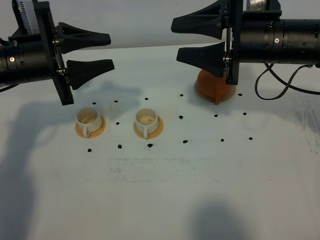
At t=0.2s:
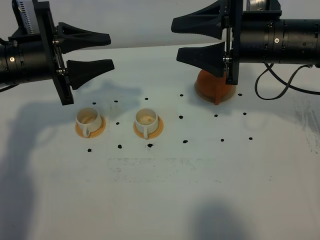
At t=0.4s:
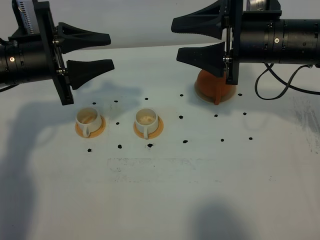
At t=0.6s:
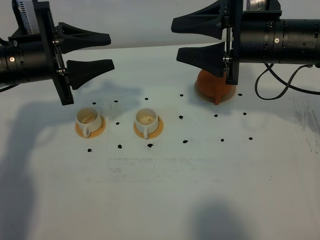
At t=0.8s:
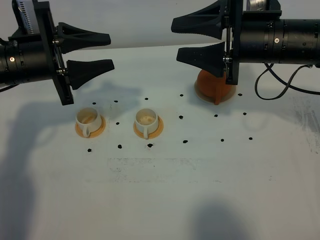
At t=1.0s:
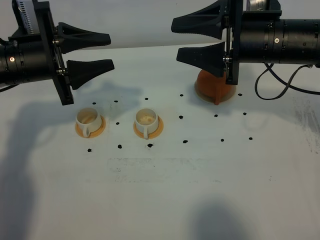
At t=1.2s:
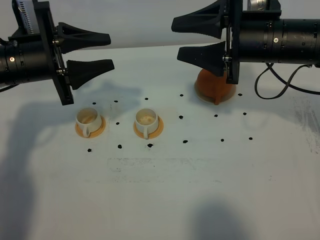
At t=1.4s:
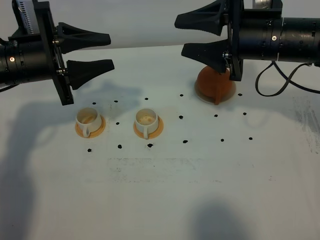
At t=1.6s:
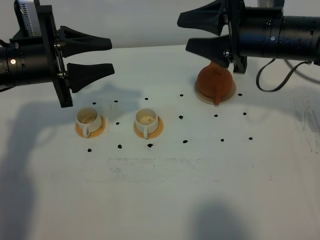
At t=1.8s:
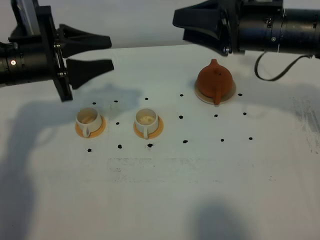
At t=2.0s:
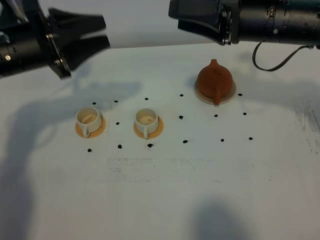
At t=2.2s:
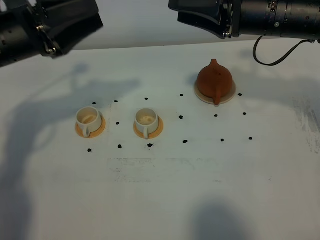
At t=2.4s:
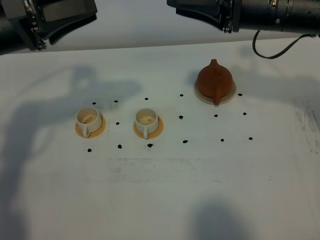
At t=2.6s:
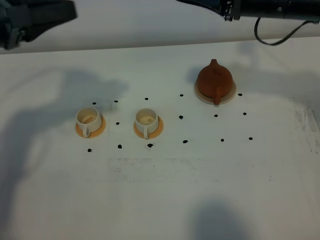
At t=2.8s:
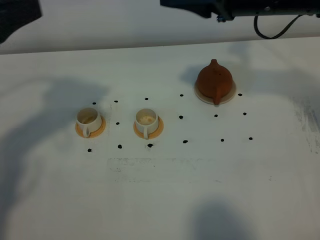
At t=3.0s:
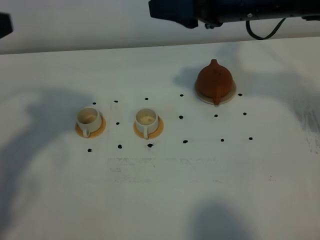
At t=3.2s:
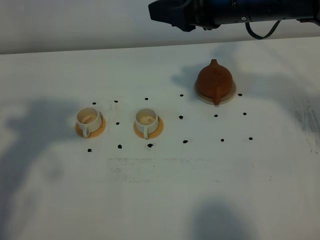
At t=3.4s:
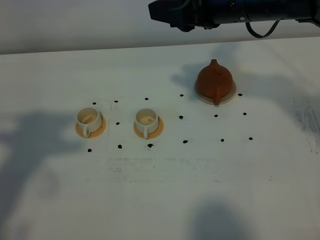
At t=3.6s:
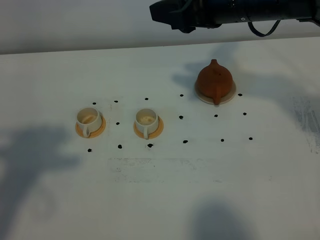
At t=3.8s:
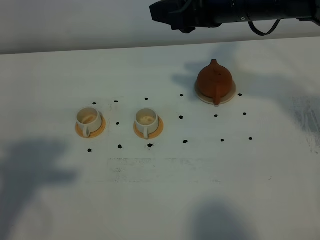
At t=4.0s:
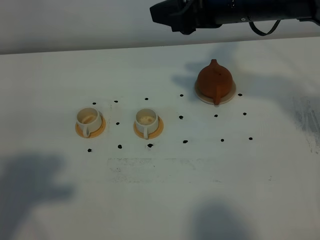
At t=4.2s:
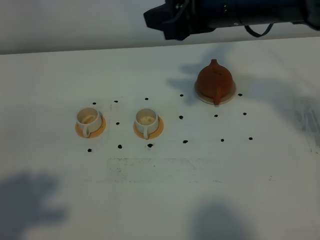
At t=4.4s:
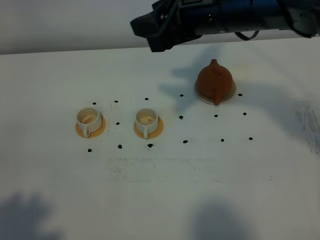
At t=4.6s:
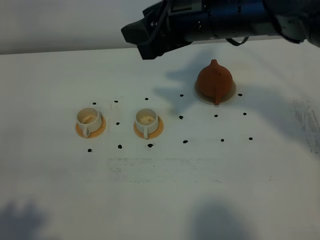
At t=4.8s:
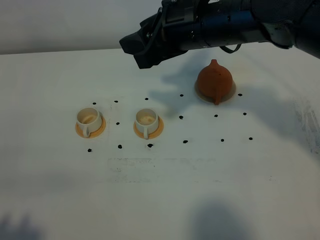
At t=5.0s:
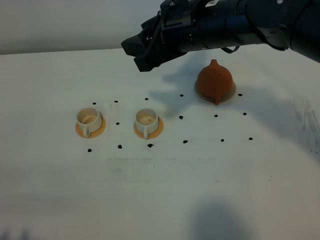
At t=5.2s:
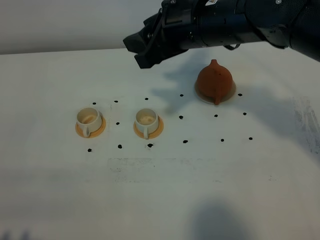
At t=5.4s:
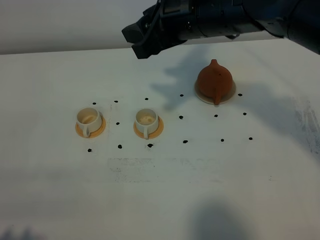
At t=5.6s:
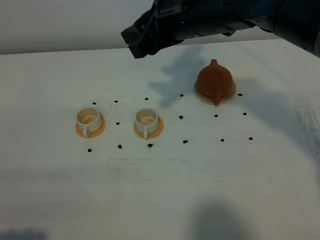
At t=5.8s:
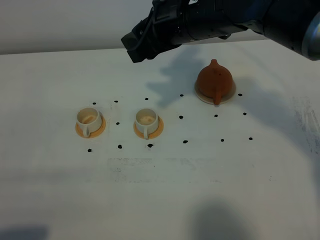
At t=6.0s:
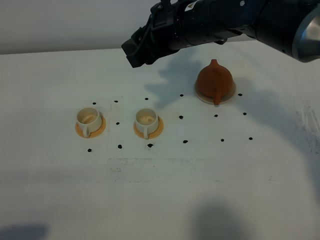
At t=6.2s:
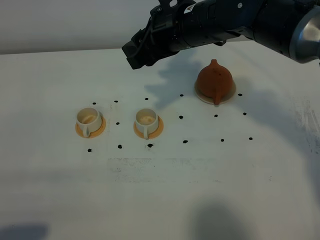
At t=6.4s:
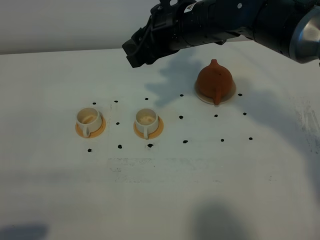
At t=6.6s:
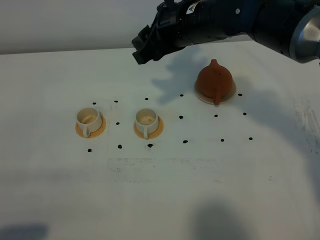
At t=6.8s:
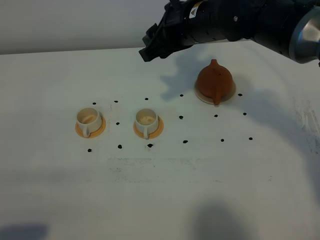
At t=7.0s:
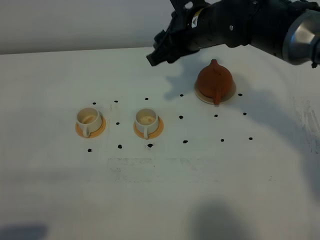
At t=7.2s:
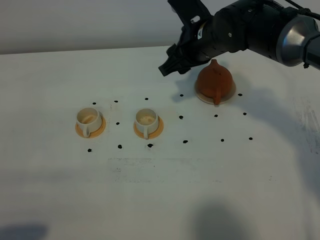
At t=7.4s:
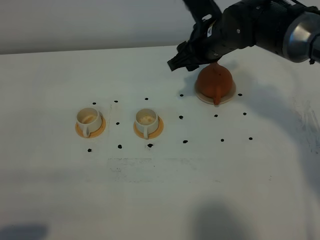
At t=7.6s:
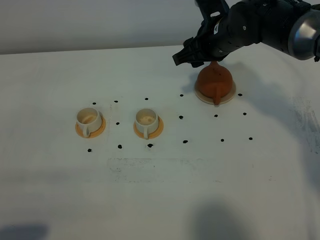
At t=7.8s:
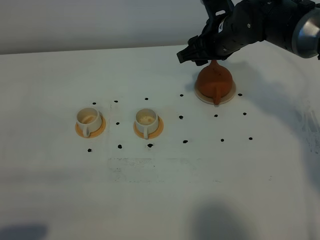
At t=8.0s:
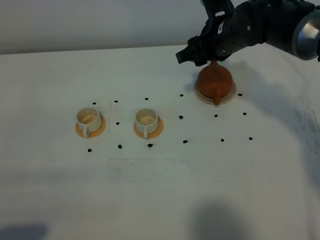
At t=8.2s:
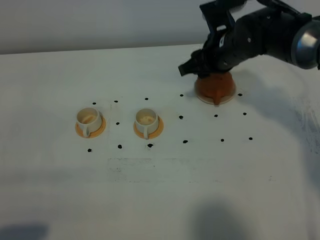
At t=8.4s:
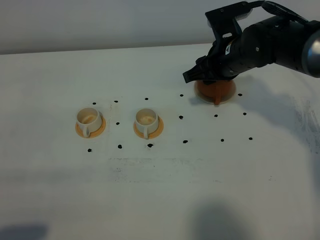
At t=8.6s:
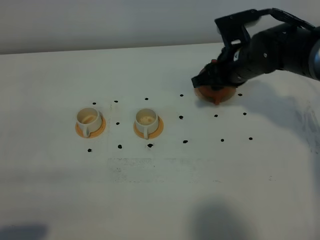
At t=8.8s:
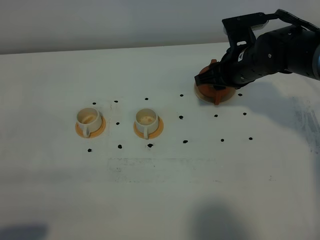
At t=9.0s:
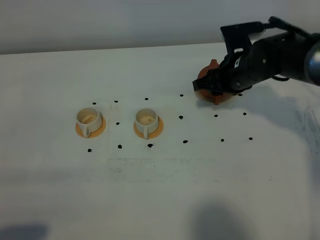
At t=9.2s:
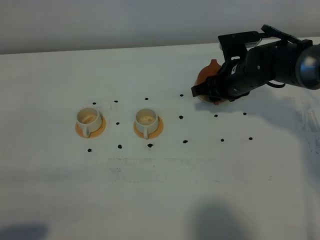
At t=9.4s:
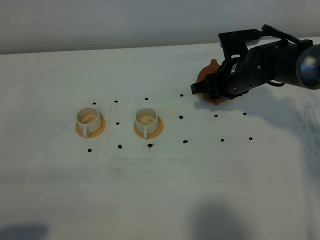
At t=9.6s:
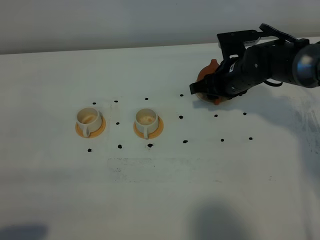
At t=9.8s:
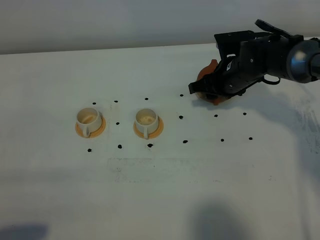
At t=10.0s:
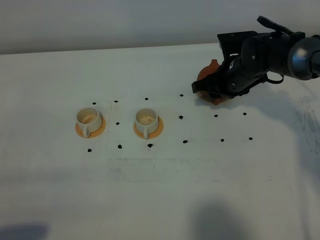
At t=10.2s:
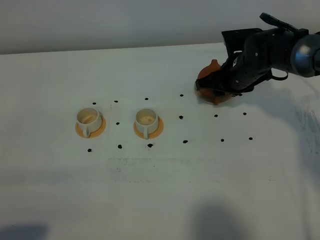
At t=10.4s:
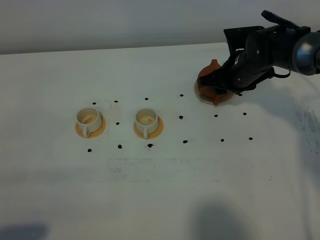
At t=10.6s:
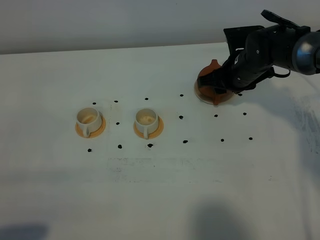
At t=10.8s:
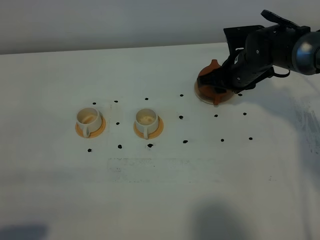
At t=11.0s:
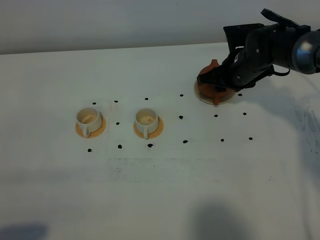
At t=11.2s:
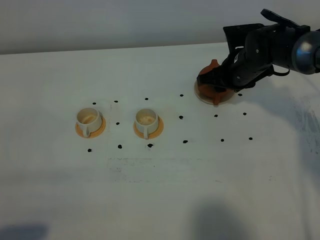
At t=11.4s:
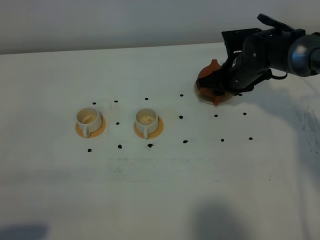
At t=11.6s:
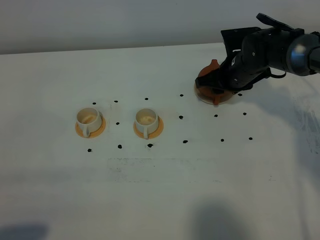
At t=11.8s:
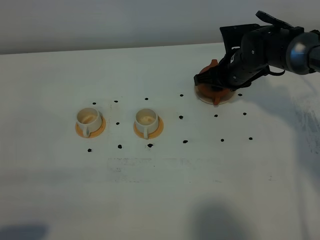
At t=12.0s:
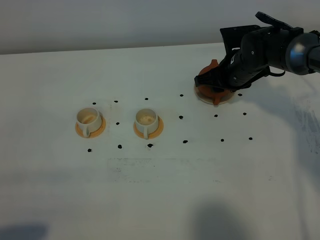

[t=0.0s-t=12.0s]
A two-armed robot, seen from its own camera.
Task of the whole recording: grasp the brown teapot and pour the tea into the two white teacups one by one, put the brown teapot back in its original place.
t=0.0s to t=1.6s: The grippers move only a little.
t=1.6s to t=3.0s: The left gripper is displaced upward and backward by about 20 cm, and closes its fingers. The right gripper heads upward, covering about 5 cm.
t=3.0s to t=4.4s: The left gripper goes roughly 20 cm backward.
t=4.4s to t=6.0s: The left gripper goes about 15 cm downward. The right gripper heads downward, covering approximately 5 cm.
t=6.0s to t=7.6s: The right gripper goes some 10 cm to the right and downward.
t=7.6s to t=9.0s: The right gripper travels downward by some 5 cm.
t=9.0s to t=10.4s: There are only small adjustments of the grippers.
t=10.4s to t=12.0s: The two grippers keep their place.

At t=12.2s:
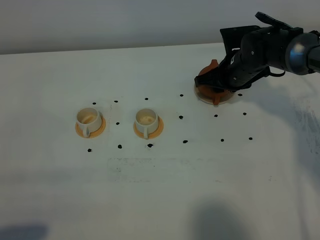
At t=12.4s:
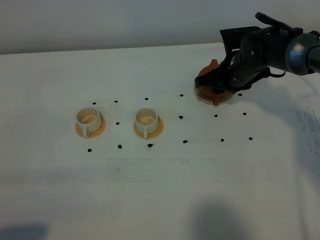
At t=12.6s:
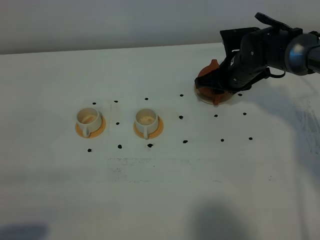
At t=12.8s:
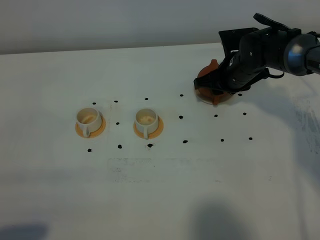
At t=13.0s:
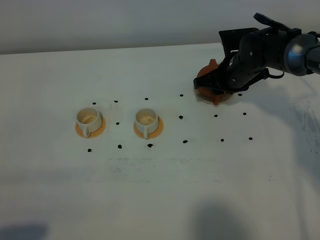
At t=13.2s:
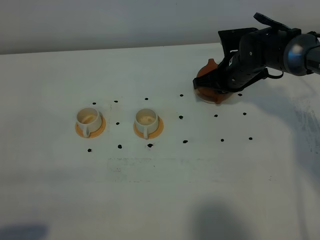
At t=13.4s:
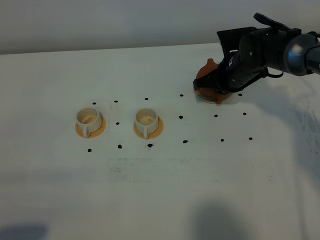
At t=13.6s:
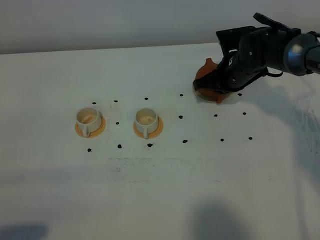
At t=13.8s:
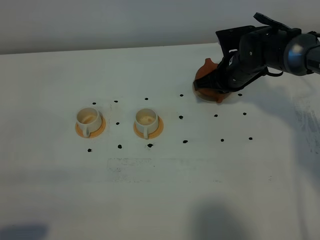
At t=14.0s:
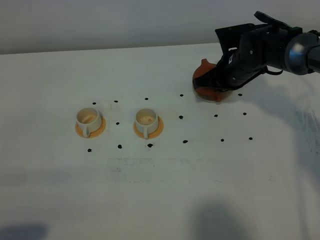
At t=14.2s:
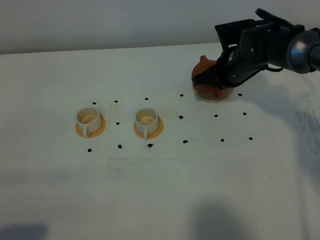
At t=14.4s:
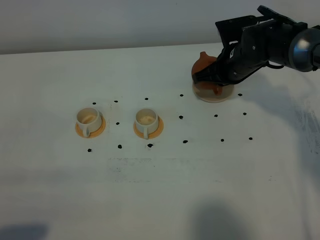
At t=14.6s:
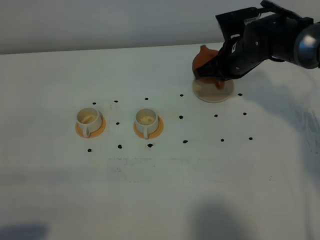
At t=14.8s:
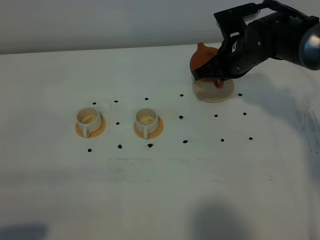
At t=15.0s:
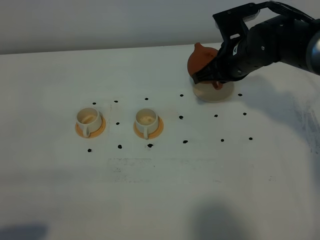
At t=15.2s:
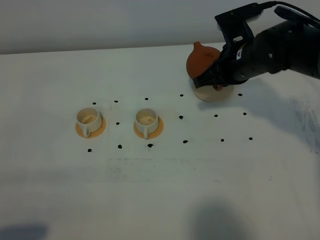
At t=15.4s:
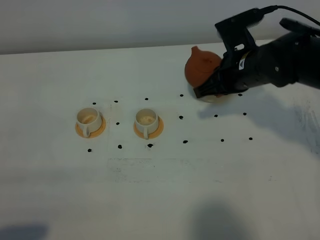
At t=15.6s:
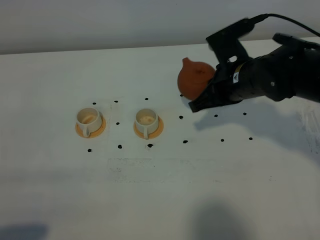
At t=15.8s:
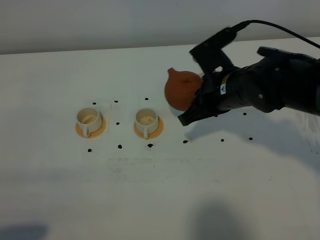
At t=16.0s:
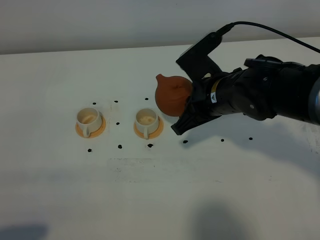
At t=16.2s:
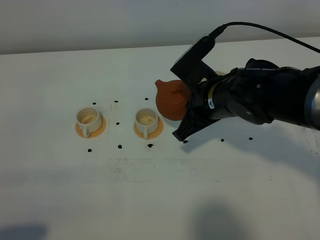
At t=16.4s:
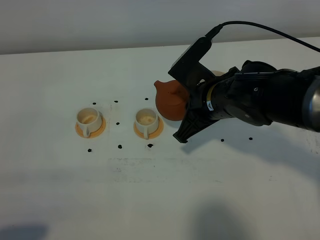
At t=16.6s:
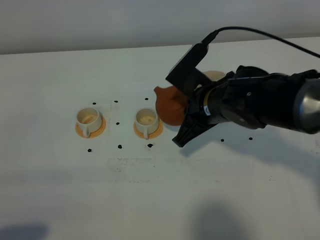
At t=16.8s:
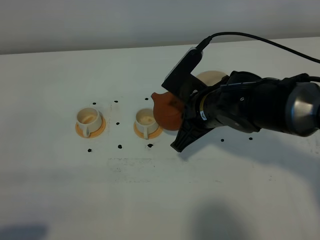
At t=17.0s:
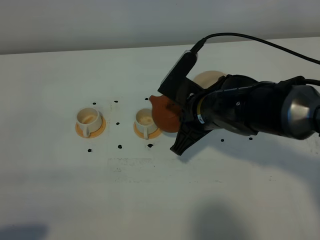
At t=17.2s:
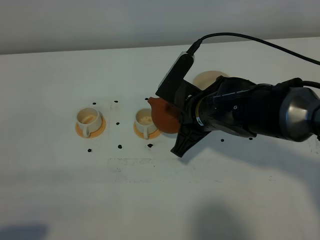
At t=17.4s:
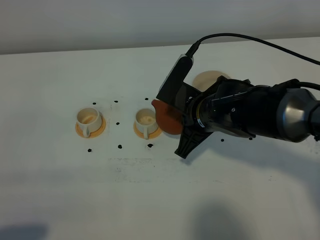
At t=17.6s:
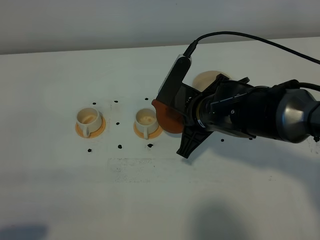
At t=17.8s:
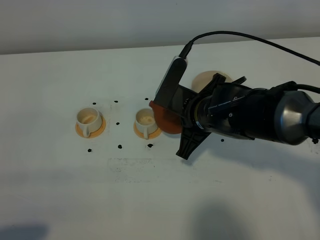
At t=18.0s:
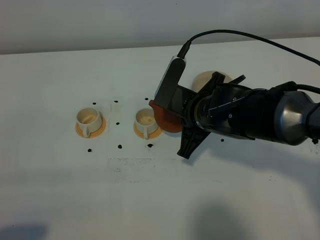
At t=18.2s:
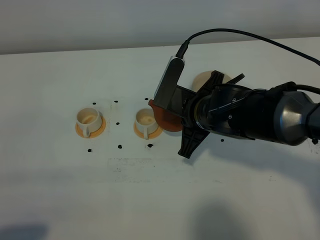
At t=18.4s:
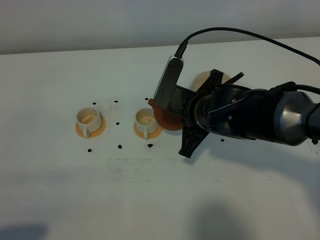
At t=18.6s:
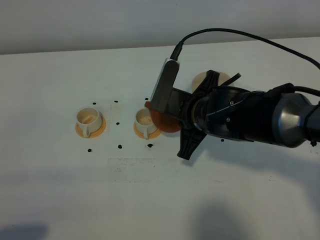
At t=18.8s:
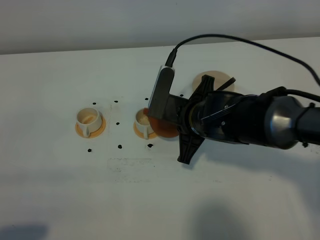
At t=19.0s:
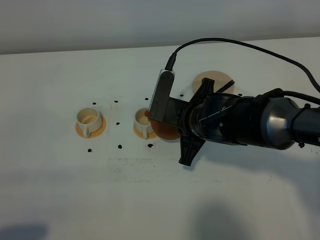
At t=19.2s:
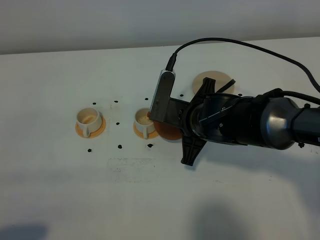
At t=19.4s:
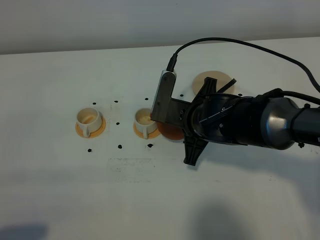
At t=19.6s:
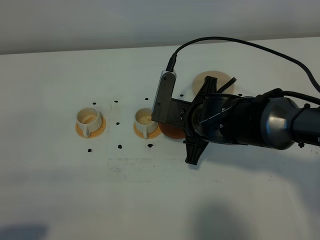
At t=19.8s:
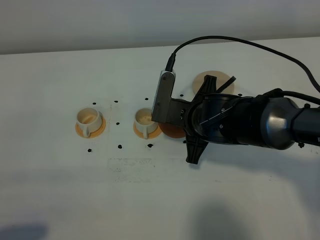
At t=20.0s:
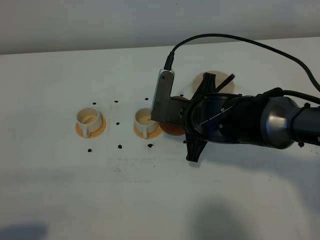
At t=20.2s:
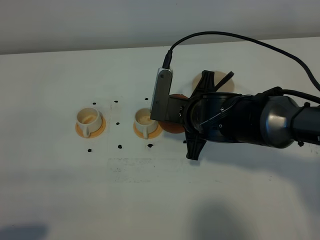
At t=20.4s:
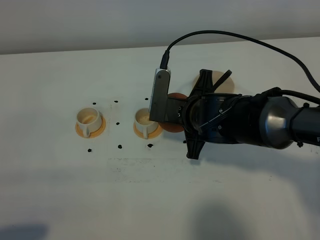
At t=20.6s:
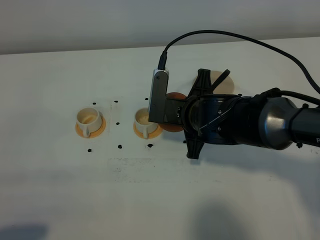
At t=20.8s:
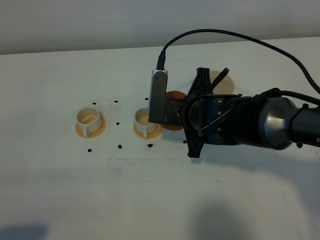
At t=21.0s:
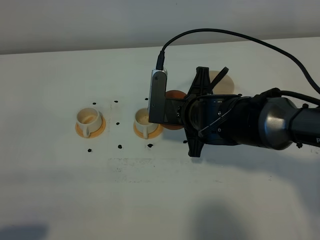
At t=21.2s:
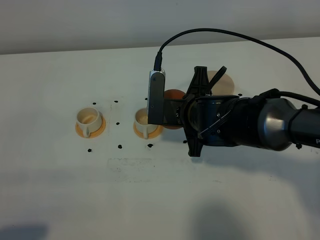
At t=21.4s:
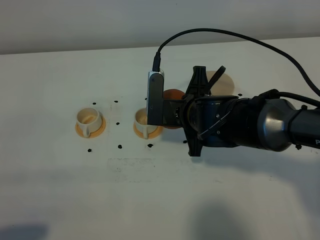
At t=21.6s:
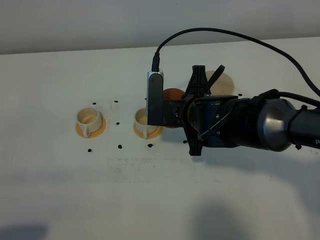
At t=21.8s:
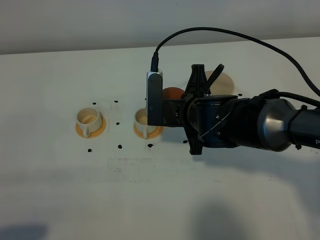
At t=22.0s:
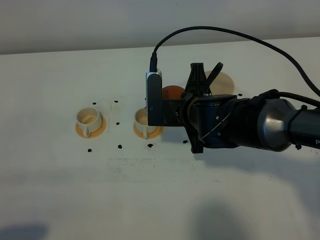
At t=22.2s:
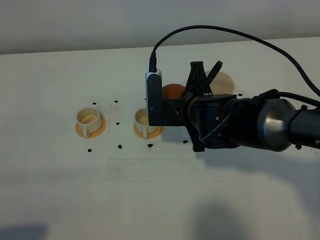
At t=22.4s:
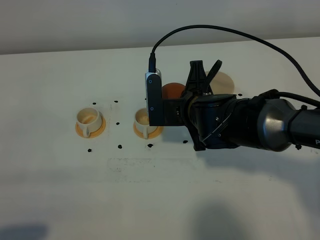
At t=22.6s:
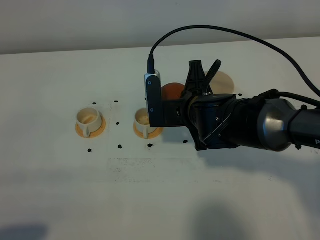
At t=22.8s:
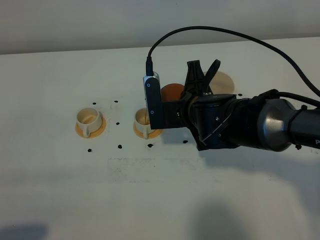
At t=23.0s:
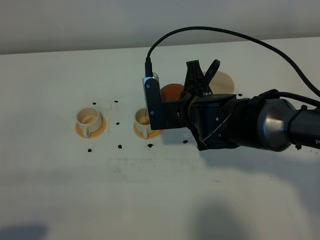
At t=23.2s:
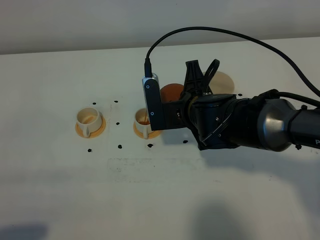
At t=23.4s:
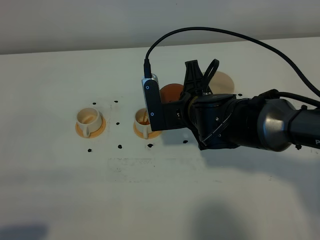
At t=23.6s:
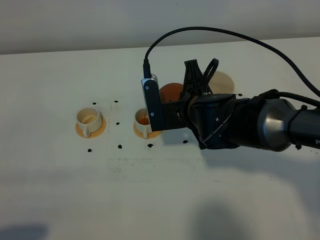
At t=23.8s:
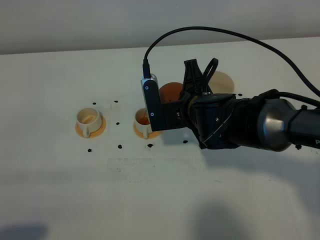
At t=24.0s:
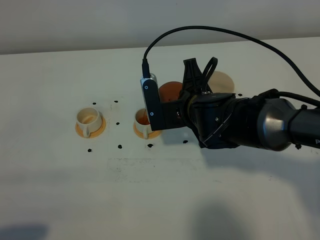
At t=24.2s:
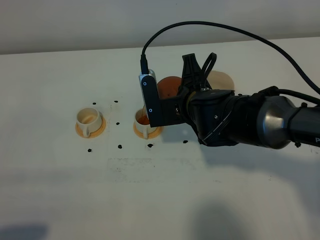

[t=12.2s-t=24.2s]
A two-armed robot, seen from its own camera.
Task of the whole recording: grasp the brown teapot and pour the tea into the two white teacups one by one, put the brown teapot back in its original place.
Step, t=12.2s to t=14.6s: Pick up the teapot with the right gripper.
t=12.2s to t=13.8s: The right gripper closes its fingers.
t=13.8s to t=15.2s: The right gripper moves upward and backward, approximately 10 cm.
t=15.2s to t=16.6s: The right gripper travels to the left and backward by about 10 cm.
t=16.6s to t=18.2s: The grippers make only small movements.
t=18.2s to t=19.8s: The grippers make only small movements.
t=19.8s to t=21.2s: There are only small adjustments of the grippers.
t=21.2s to t=24.2s: The grippers make only small movements.
